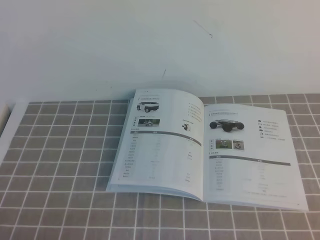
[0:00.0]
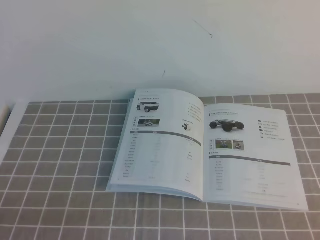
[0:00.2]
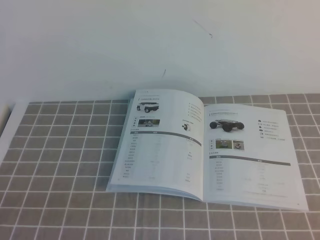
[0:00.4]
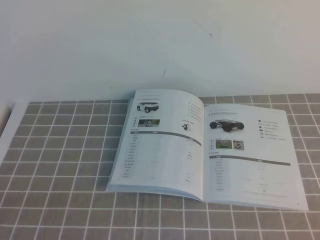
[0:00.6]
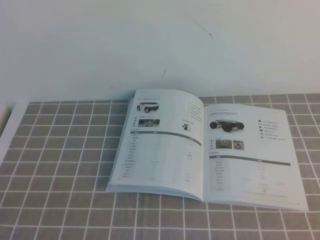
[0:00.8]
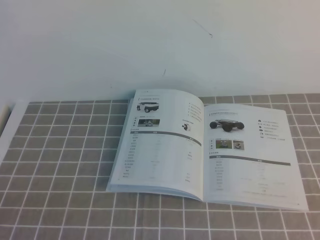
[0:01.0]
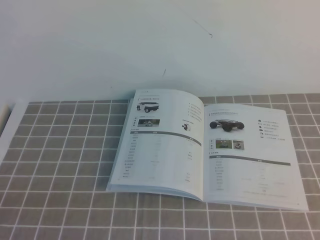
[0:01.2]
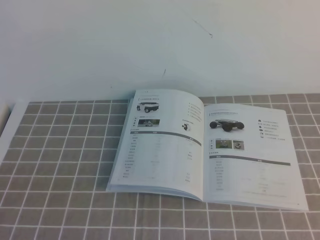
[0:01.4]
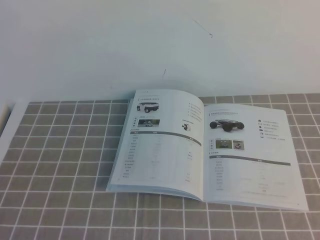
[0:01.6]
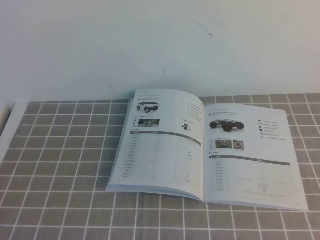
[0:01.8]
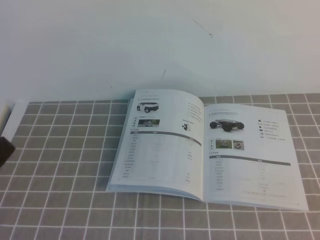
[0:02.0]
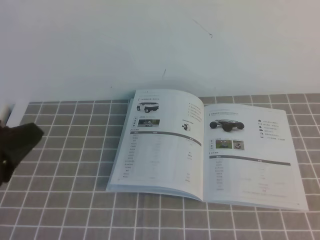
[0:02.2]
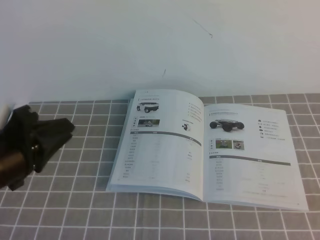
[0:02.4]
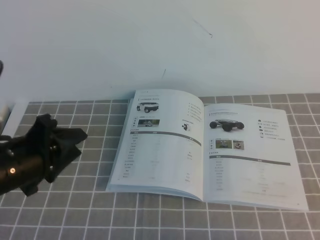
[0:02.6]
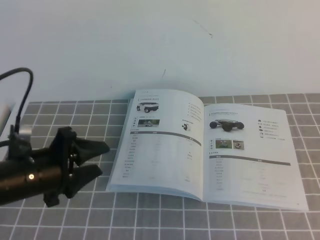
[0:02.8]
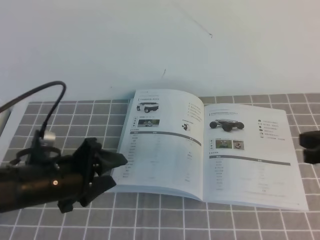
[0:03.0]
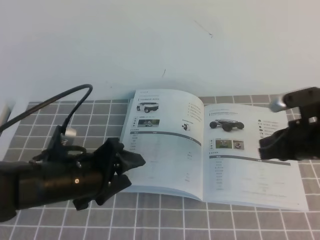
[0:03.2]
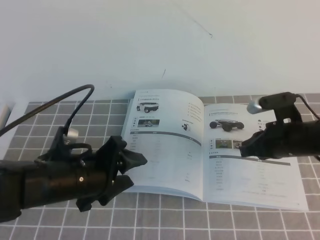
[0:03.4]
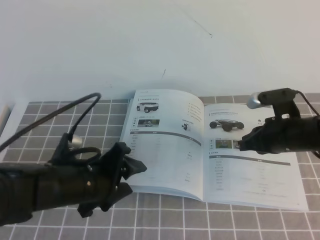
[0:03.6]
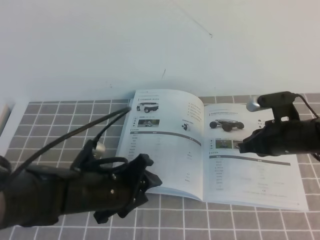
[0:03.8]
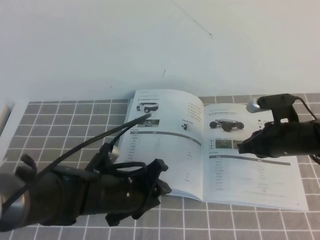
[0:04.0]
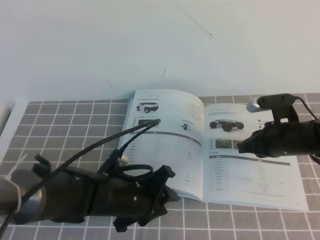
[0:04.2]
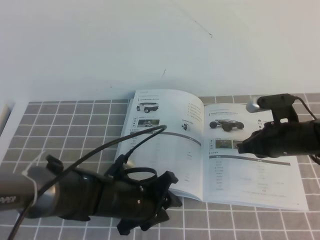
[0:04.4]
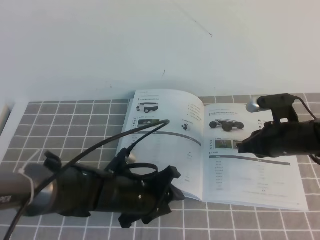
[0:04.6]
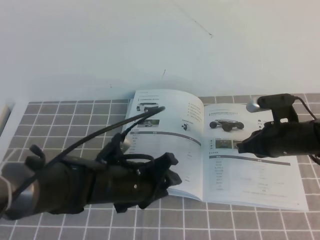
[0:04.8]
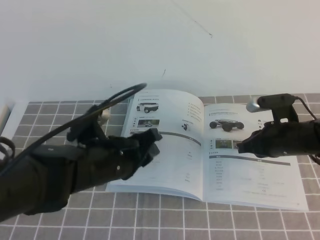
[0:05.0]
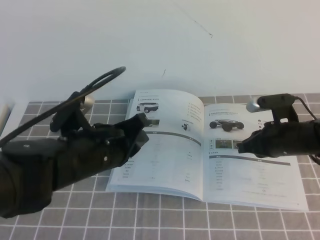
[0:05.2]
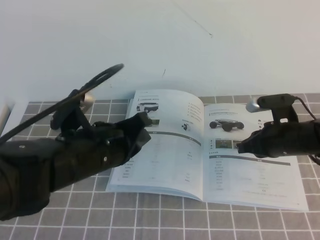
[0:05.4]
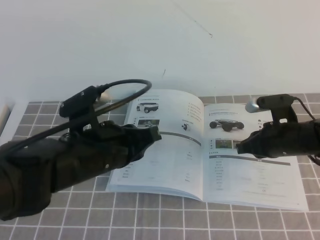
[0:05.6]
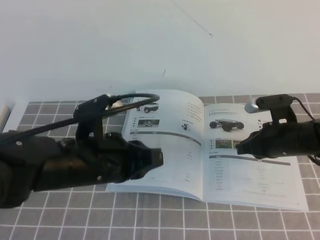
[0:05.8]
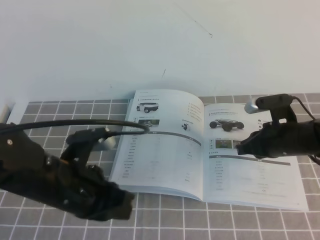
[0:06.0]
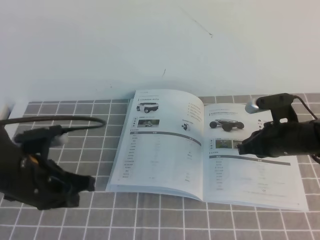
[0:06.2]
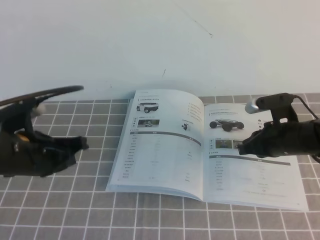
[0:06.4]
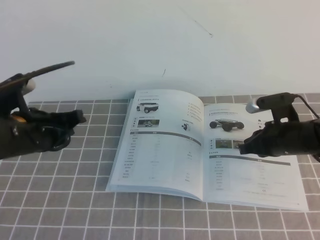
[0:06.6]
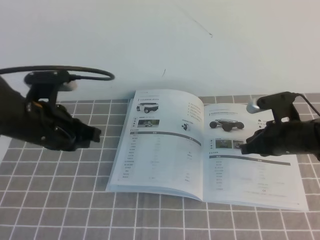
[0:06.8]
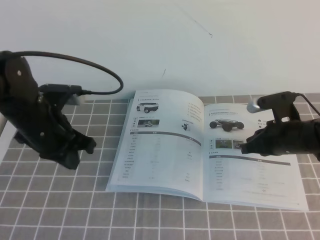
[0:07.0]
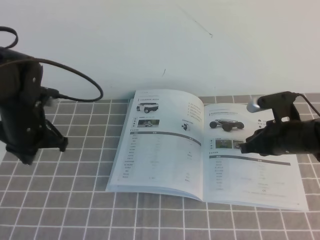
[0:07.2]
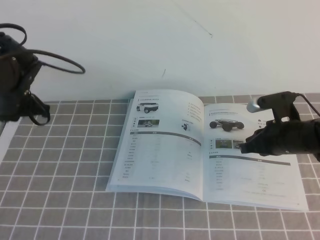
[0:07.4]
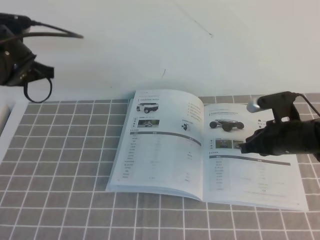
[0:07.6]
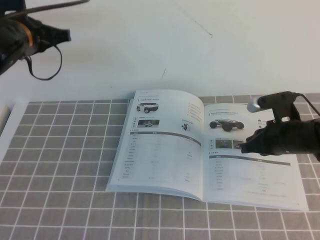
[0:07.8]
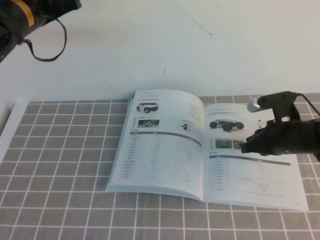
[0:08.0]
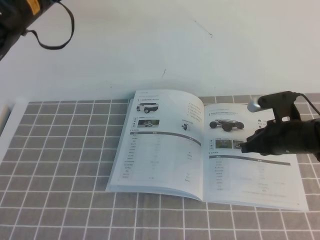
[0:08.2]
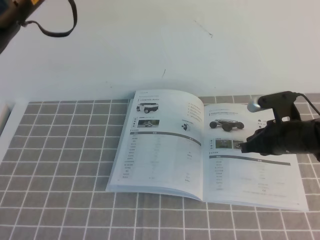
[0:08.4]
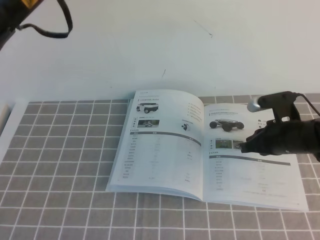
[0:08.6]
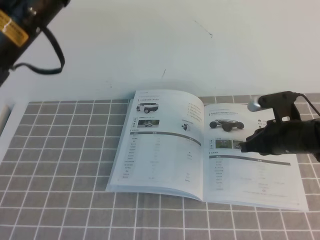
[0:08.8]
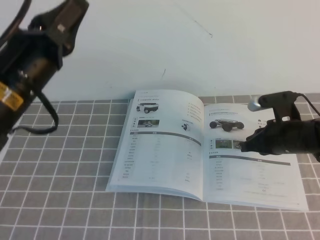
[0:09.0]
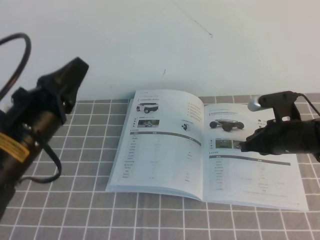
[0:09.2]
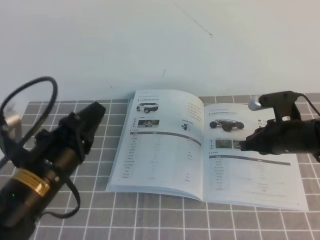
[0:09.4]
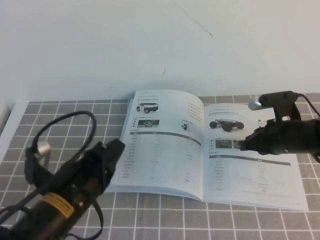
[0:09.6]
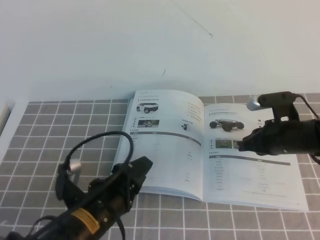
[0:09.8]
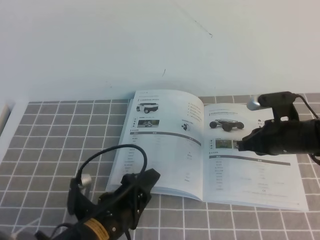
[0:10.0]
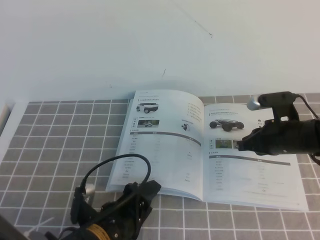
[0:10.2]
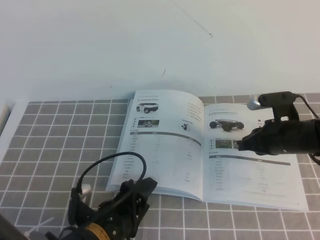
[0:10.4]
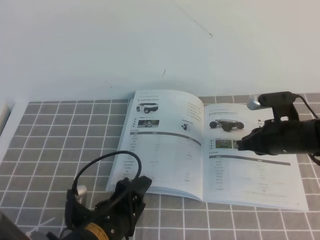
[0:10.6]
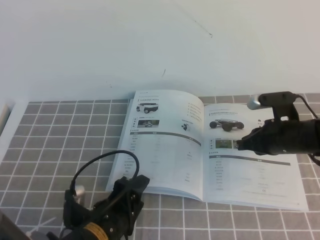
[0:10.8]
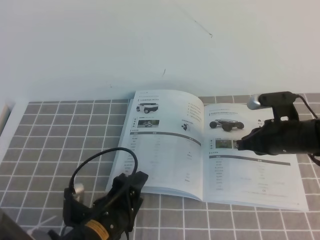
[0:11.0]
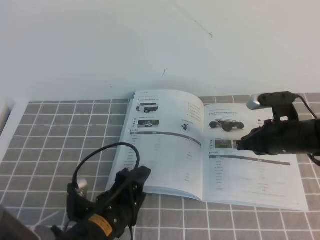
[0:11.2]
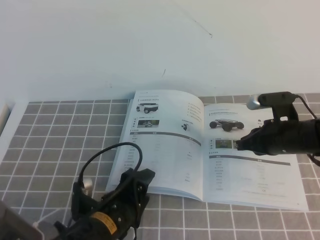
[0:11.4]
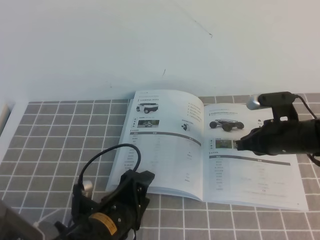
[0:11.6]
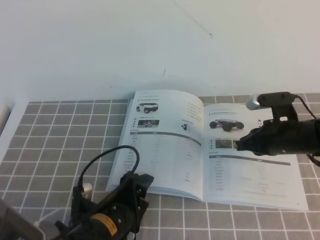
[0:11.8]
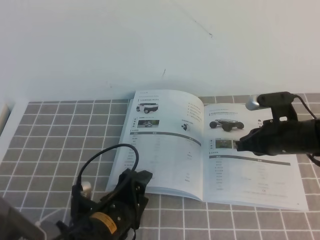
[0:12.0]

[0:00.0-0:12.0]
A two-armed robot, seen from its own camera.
Task of the whole recording: on the grey tablecloth, hold the book with one hand and close it with the other.
0:01.6 to 0:03.0: The right gripper heads forward, covering about 20 cm. Meanwhile the left gripper is displaced forward and downward by some 25 cm, and opens.
0:03.0 to 0:04.4: The right gripper is displaced forward, downward and to the left by about 20 cm; the left gripper travels to the right and downward by about 15 cm.
0:04.4 to 0:06.0: The left gripper travels upward and to the left by approximately 10 cm, and closes up.
0:06.0 to 0:07.6: The left gripper is displaced forward and to the left by roughly 20 cm.
0:07.6 to 0:09.0: The left gripper shifts approximately 15 cm backward, upward and to the right.
0:09.0 to 0:10.4: The left gripper moves downward, approximately 25 cm, and opens.
0:10.4 to 0:12.0: The grippers stay close to where they were, moving slightly.

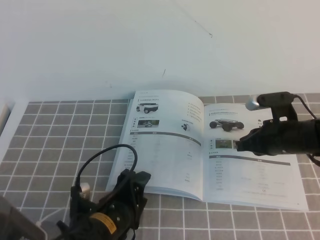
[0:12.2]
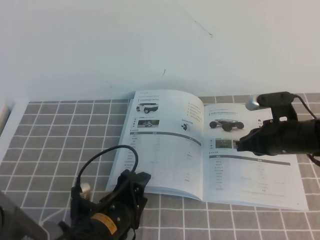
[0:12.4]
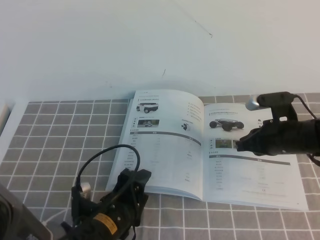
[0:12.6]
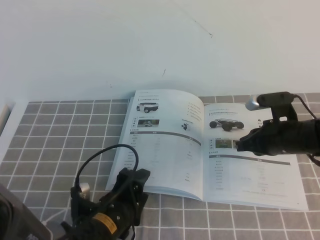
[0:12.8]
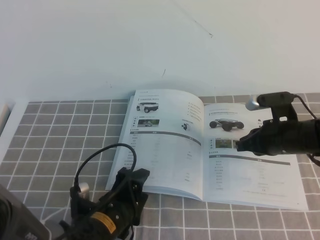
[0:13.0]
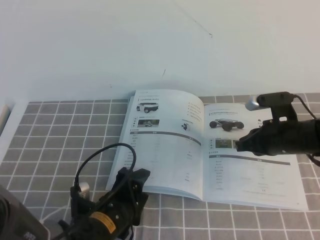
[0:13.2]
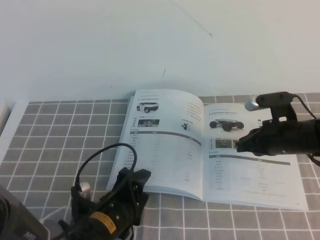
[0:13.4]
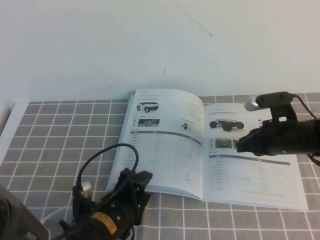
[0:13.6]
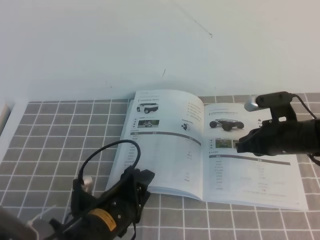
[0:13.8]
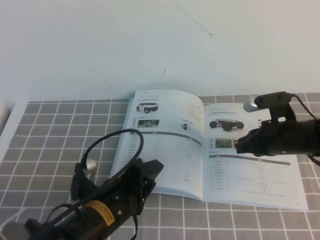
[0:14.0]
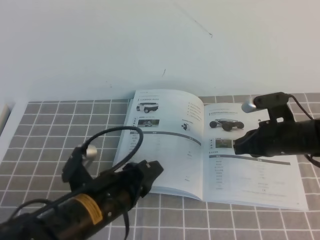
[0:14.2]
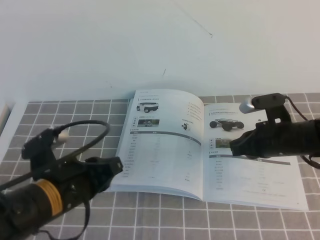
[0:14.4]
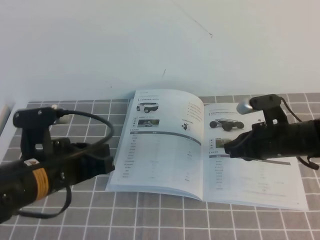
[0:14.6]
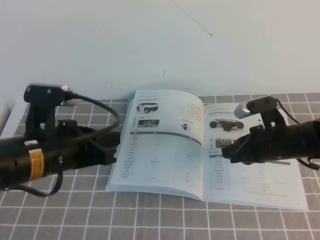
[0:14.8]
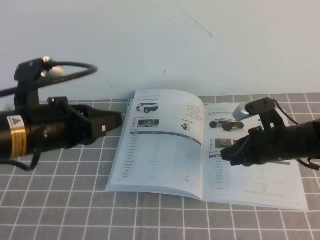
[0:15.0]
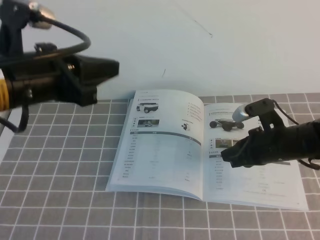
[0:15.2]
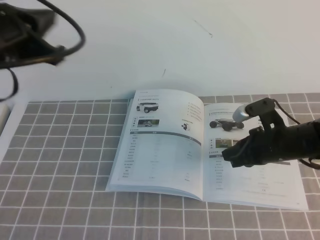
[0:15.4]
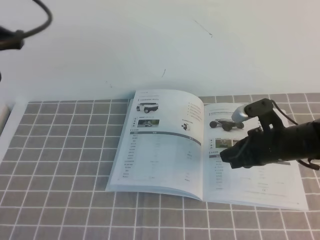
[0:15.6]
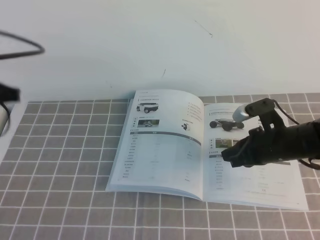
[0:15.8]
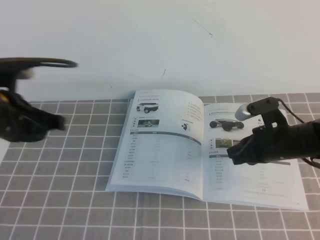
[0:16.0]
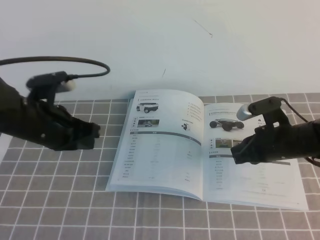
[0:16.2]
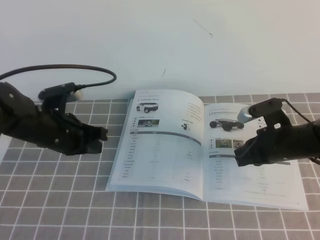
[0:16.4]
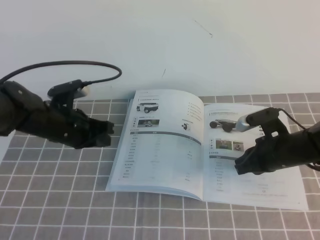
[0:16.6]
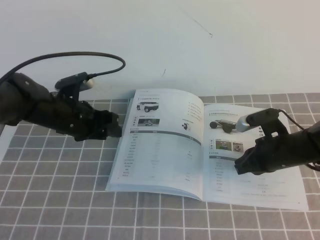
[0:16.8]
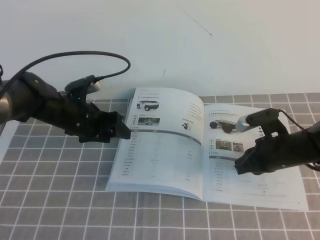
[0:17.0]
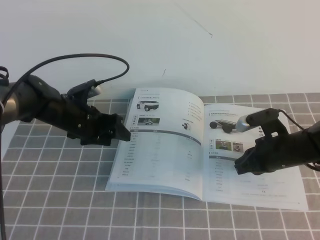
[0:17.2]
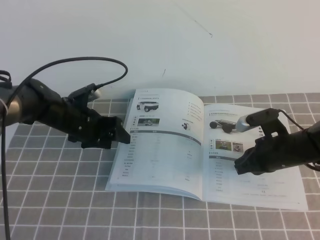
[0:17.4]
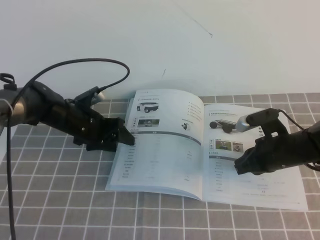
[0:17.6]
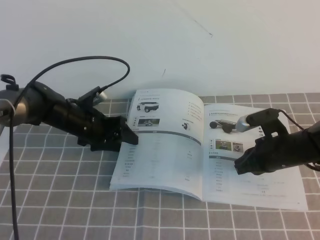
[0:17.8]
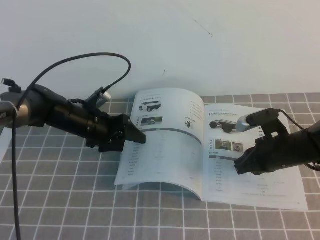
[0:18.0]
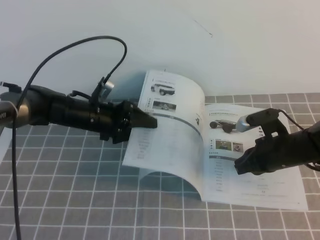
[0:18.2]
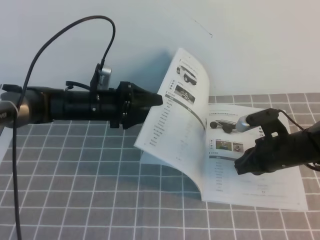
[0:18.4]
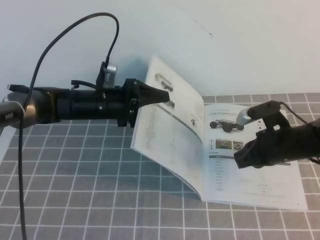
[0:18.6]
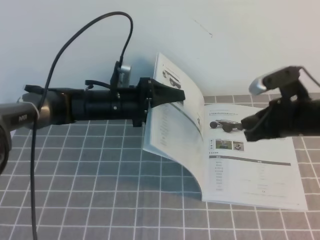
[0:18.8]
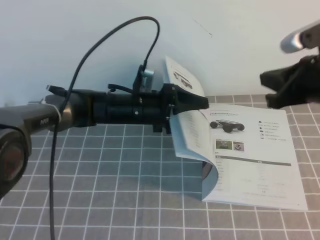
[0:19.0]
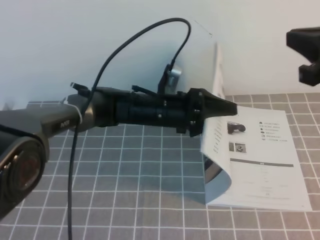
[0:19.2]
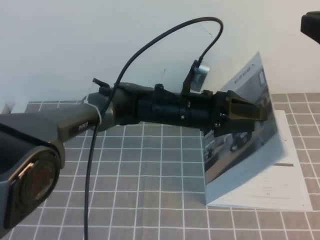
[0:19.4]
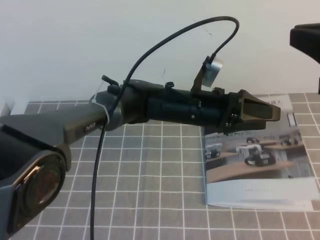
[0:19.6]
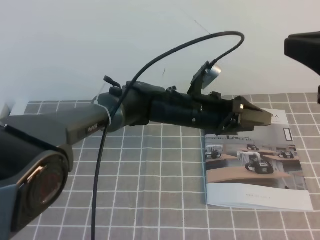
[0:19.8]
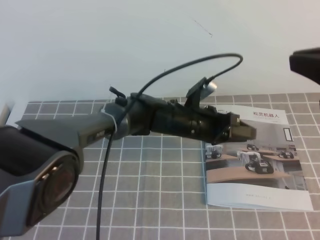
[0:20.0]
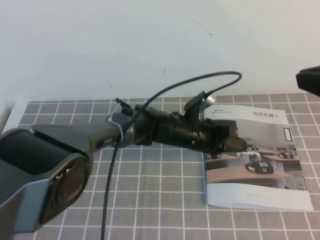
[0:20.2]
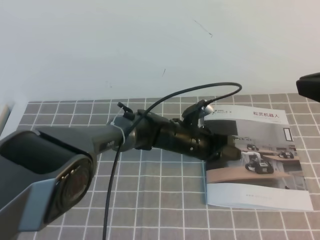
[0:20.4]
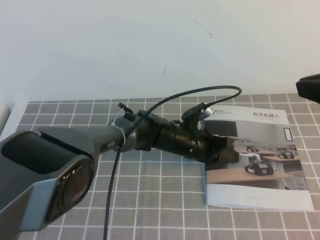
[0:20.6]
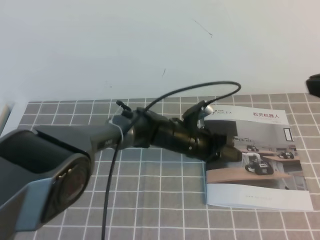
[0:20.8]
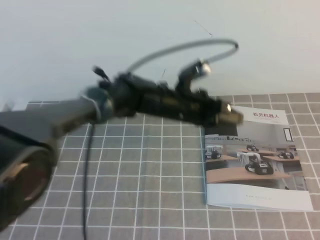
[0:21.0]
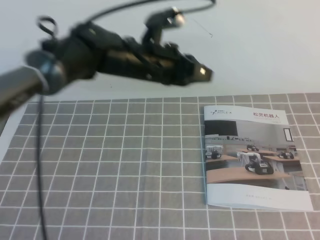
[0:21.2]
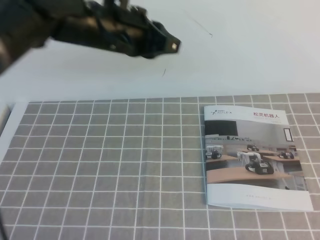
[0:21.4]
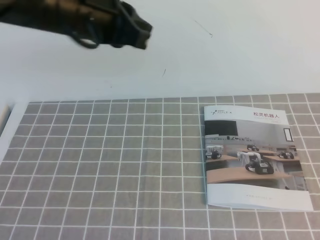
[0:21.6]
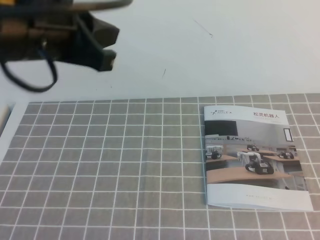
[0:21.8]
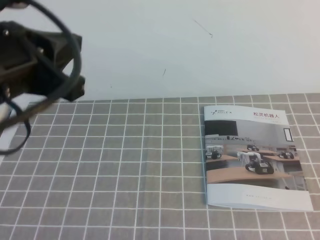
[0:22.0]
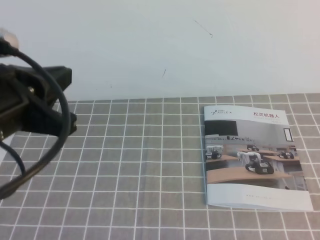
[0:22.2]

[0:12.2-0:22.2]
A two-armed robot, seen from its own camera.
Task of the whole recording: on the grey tablecloth, hold the book with one hand and close it with the other.
0:12.2 to 0:13.6: Neither gripper changes place.
0:13.6 to 0:15.0: The left gripper moves upward, roughly 20 cm, and closes up.
0:15.0 to 0:16.4: The left gripper goes some 15 cm forward and downward.
0:16.4 to 0:18.0: The left gripper travels forward and downward by some 15 cm, and opens its fingers.
0:18.0 to 0:19.4: The left gripper heads to the right, covering approximately 20 cm, while the right gripper goes roughly 25 cm upward.
0:19.4 to 0:20.8: The left gripper heads downward, covering about 5 cm, and closes its fingers.
0:20.8 to 0:22.2: The left gripper travels upward, to the left and backward by roughly 40 cm. Meanwhile the right gripper goes some 20 cm backward, downward and to the right.
